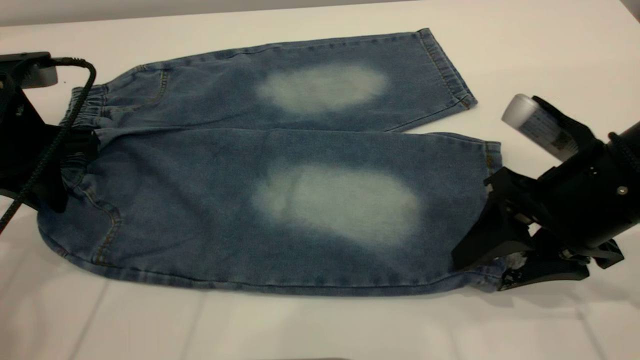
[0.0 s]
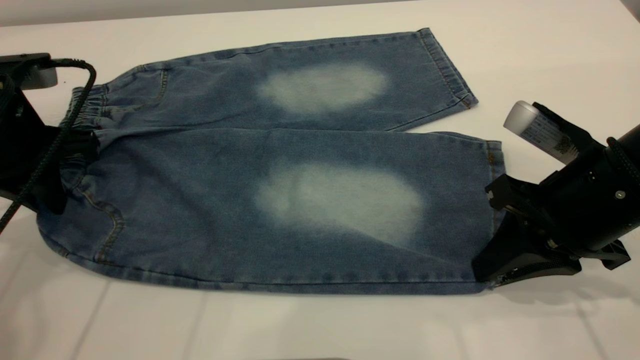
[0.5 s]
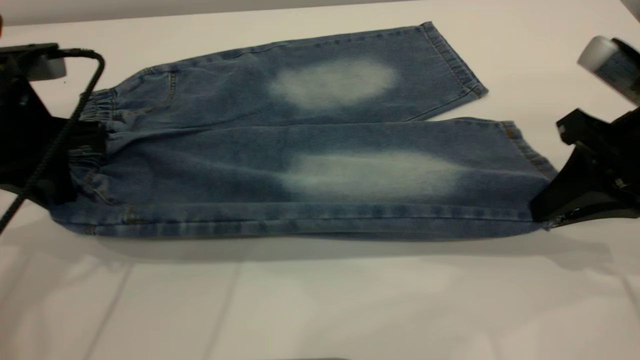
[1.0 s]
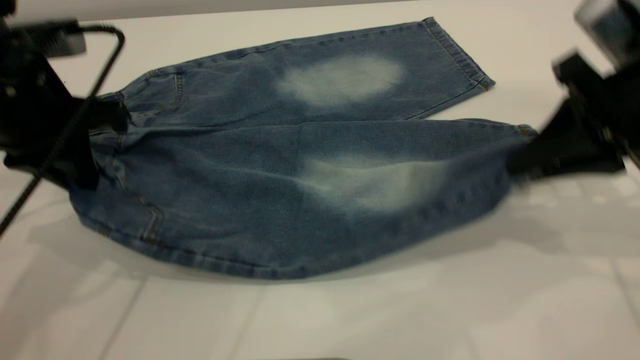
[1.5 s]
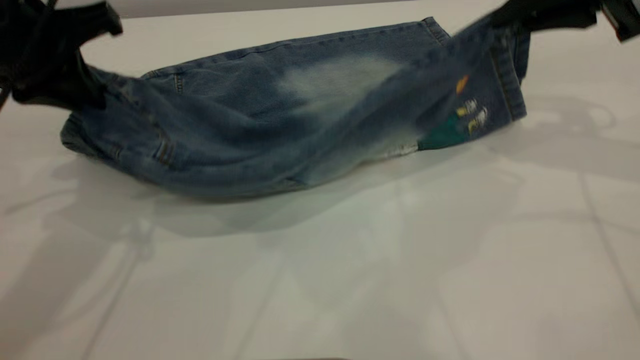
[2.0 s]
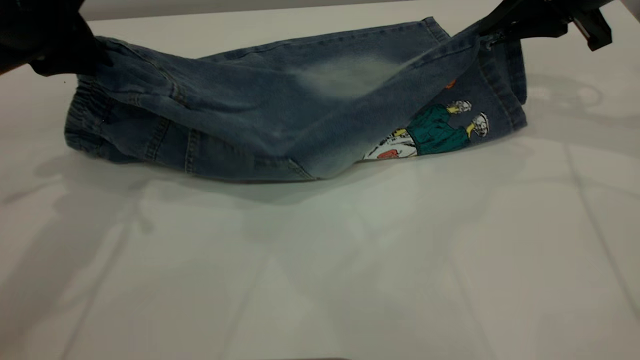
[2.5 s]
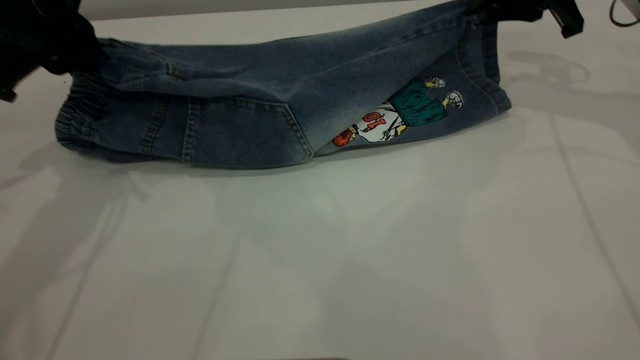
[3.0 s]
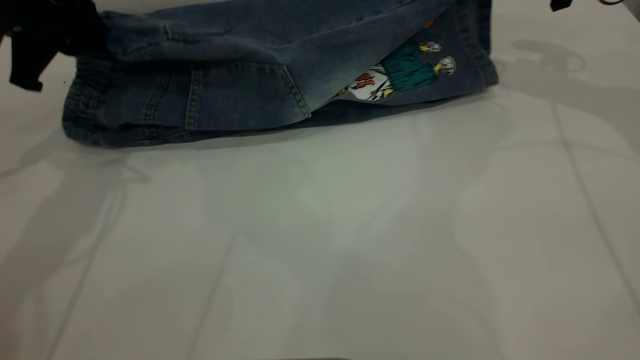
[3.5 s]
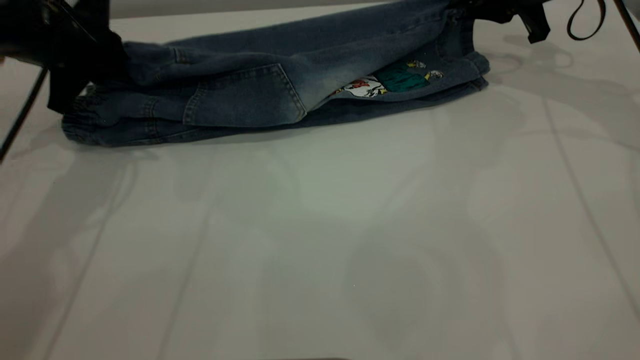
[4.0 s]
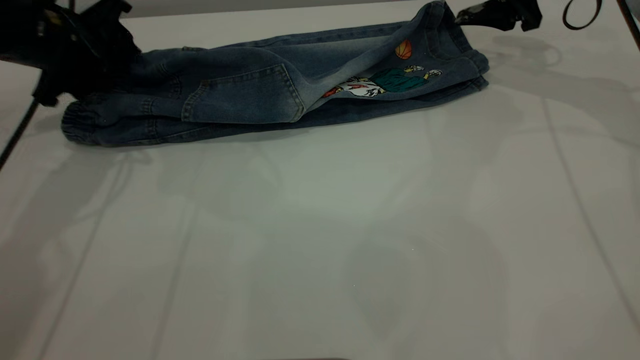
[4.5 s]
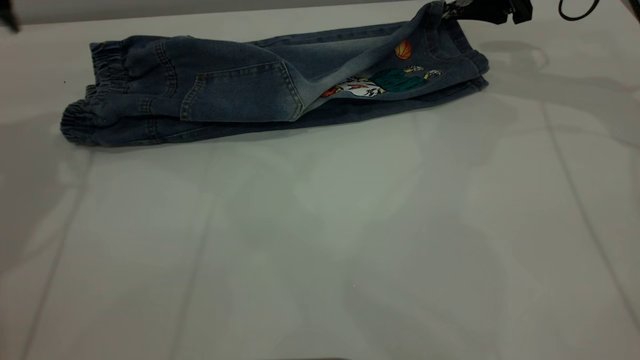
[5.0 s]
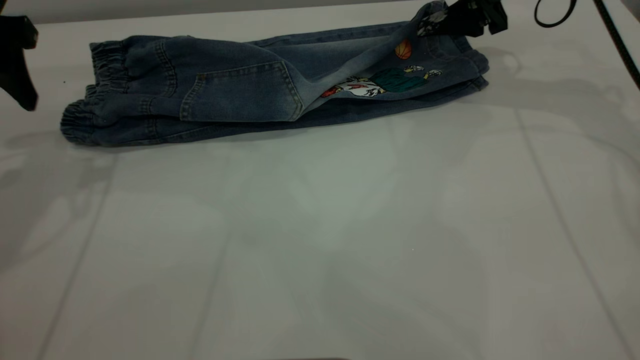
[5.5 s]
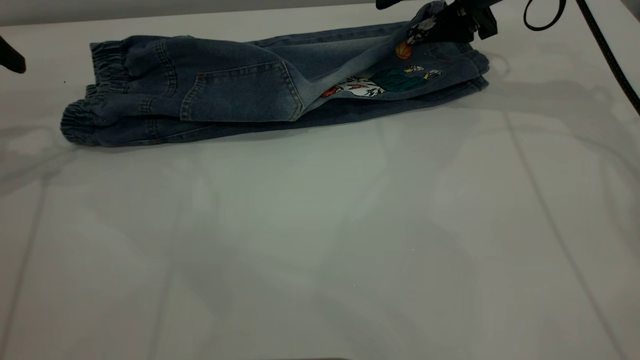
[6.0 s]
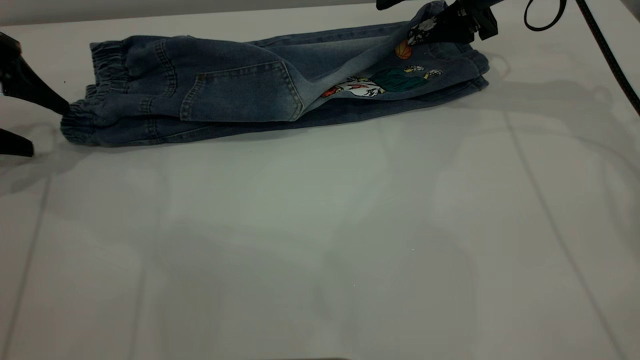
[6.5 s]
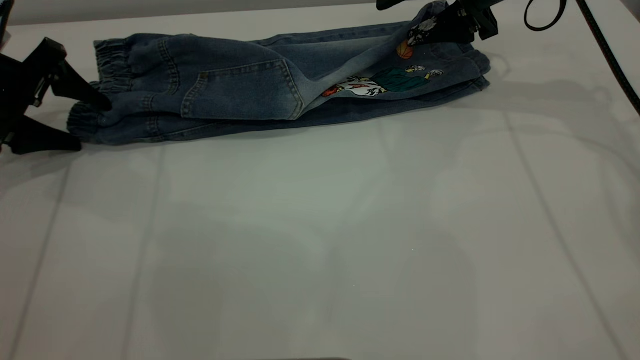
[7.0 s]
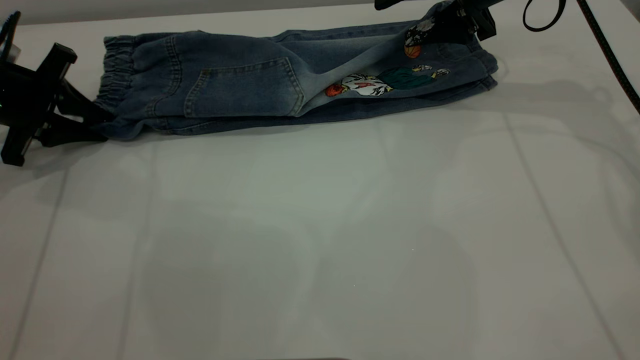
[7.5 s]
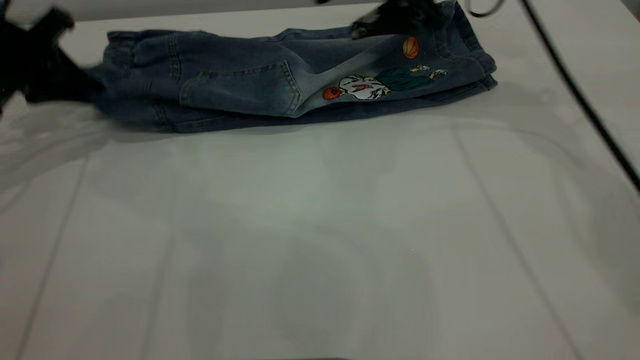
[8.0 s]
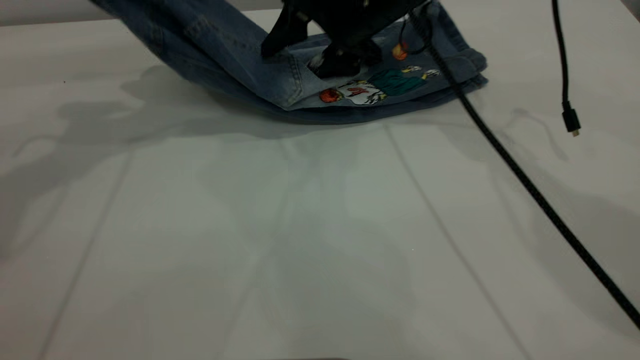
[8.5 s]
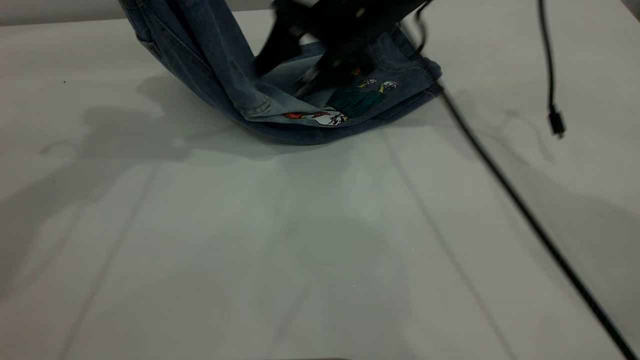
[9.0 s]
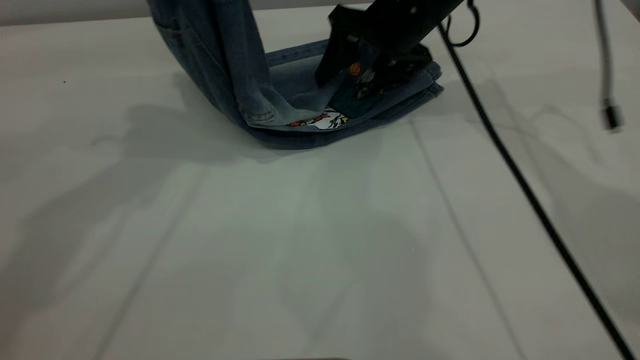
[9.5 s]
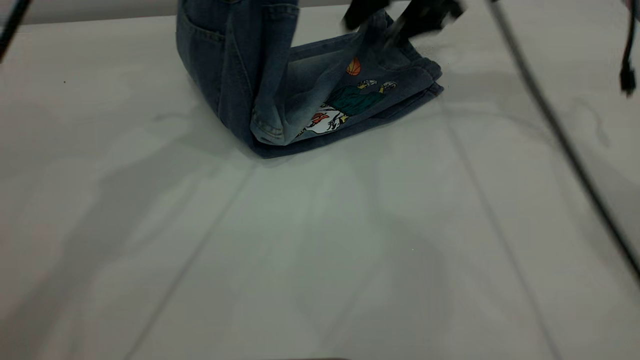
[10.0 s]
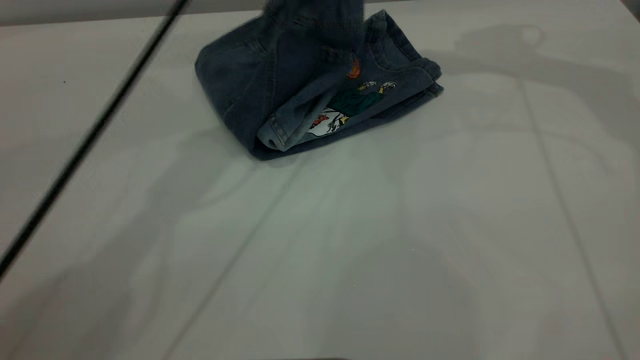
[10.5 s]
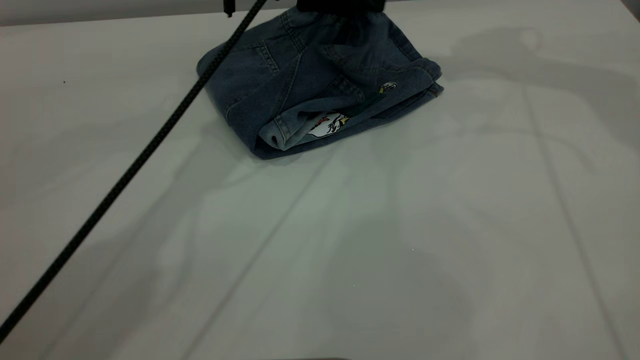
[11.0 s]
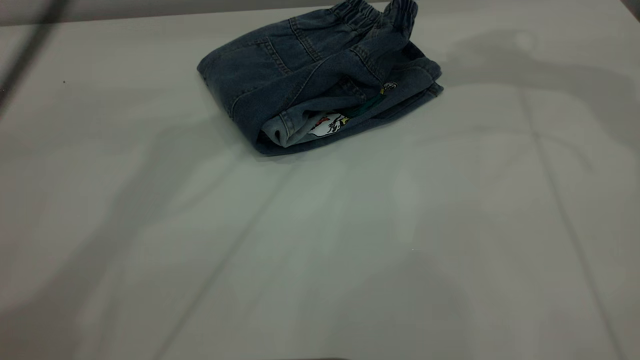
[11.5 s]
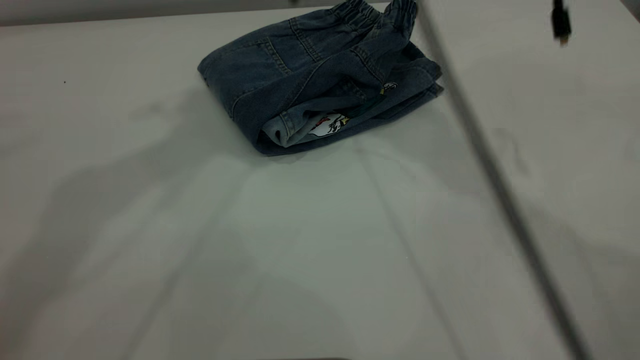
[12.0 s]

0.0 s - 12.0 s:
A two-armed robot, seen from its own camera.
Step, 0.0 s - 4.5 s: Fold the bottom of the pants upward.
Step, 5.0 s - 11.0 s: Fold the pants from left to right.
0.0 s - 2.0 s: The left gripper moves upward, about 10 cm; the right gripper moves forward, upward and to the right, some 20 cm, and closes.
2.0 s - 4.0 s: Both grippers move forward and downward, approximately 15 cm.
4.0 s - 6.0 s: The left gripper moves to the left, upward and backward, some 15 cm, and opens. Meanwhile the right gripper travels to the left by some 5 cm, and opens.
6.0 s - 8.0 s: The right gripper travels to the left by approximately 10 cm; the left gripper closes its fingers.
8.0 s - 10.0 s: The left gripper heads to the right and upward, covering approximately 25 cm; the right gripper shifts by roughly 5 cm.
10.0 s - 12.0 s: The right gripper goes roughly 15 cm to the left, backward and upward, while the left gripper goes about 15 cm upward, and opens its fingers.

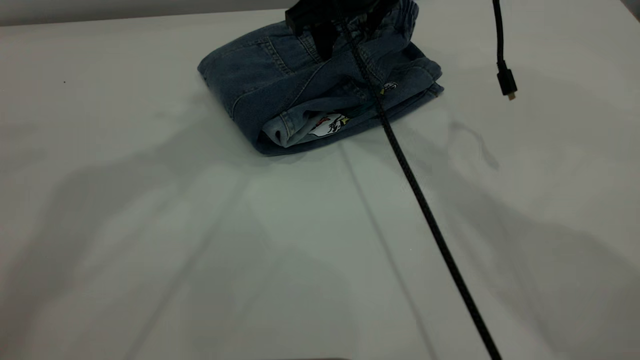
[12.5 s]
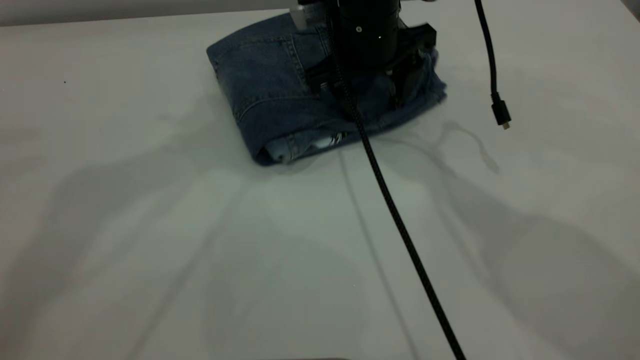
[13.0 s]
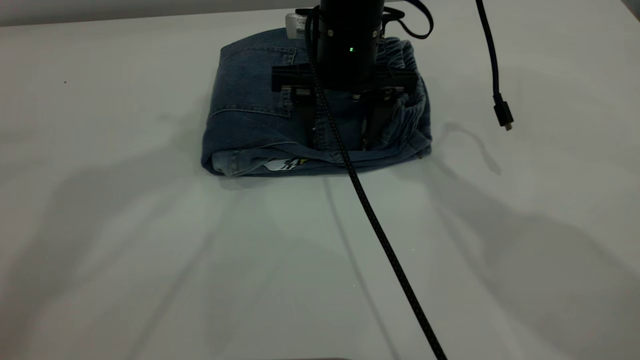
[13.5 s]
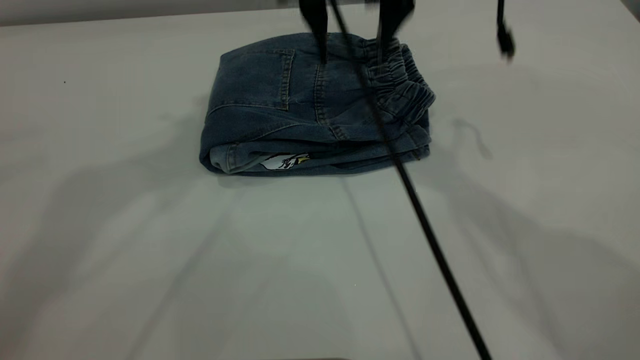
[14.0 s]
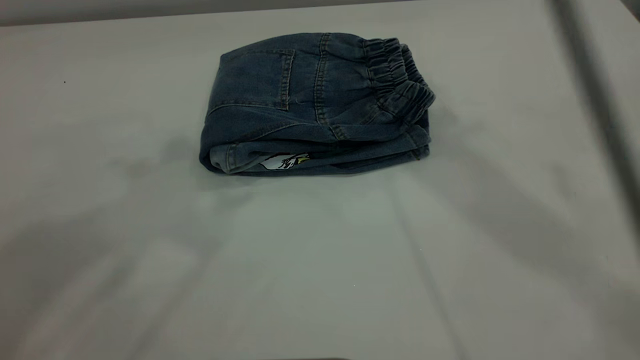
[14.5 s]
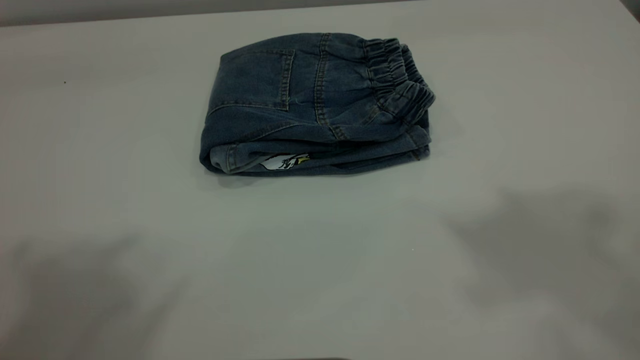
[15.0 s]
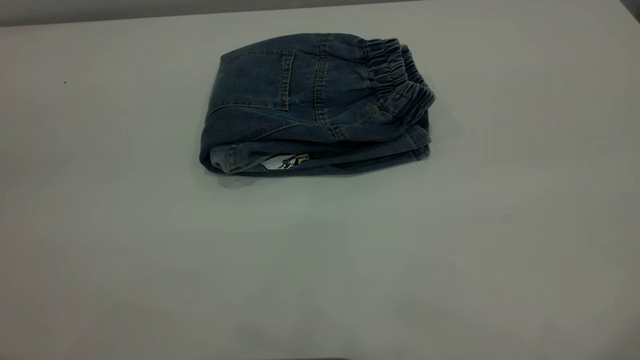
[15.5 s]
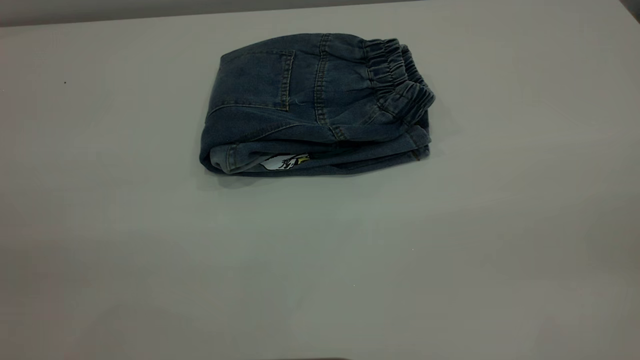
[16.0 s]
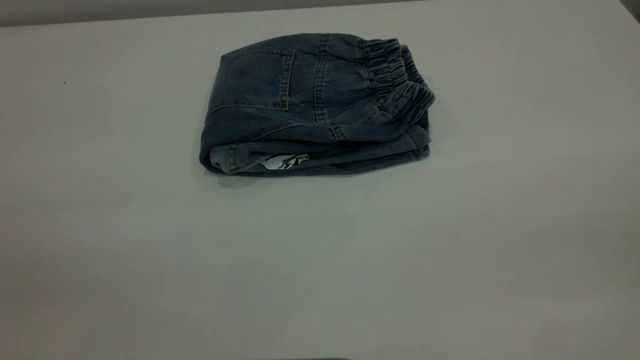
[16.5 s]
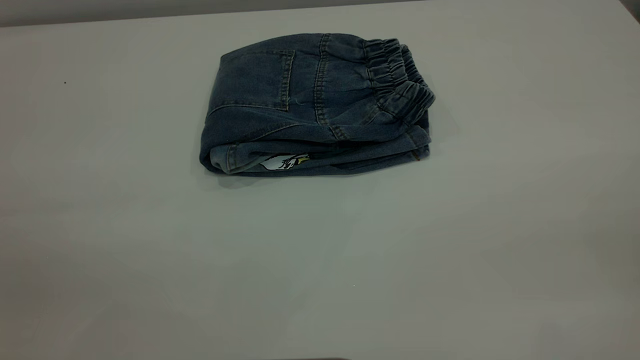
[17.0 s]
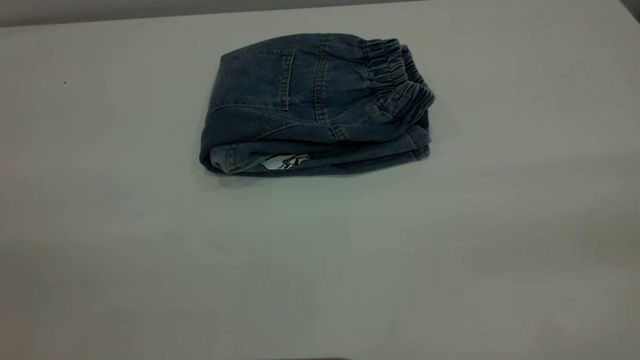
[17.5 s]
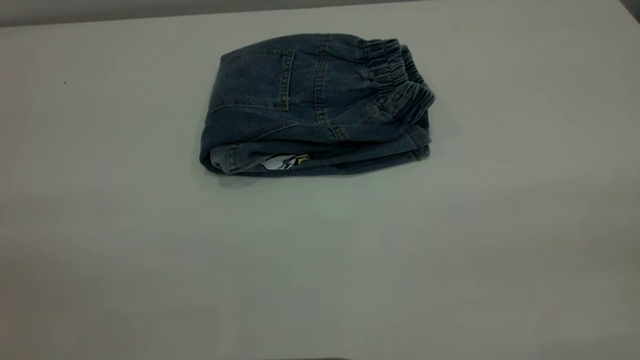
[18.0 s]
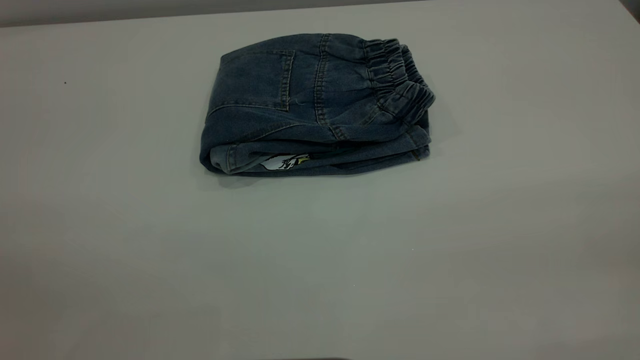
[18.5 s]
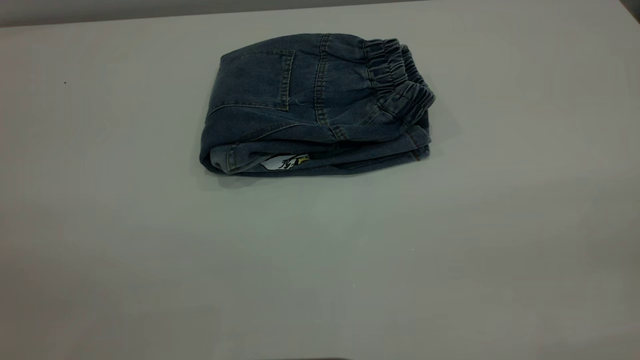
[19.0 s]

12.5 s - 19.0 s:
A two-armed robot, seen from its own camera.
12.5 s - 14.5 s: The left gripper goes about 10 cm backward; the right gripper heads upward, covering approximately 30 cm.
14.5 s - 17.0 s: The right gripper shifts about 40 cm backward, to the right and downward.
